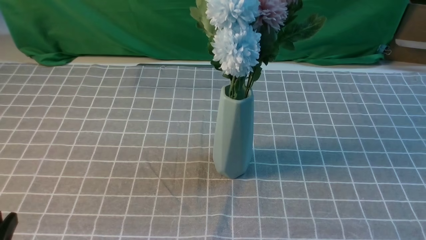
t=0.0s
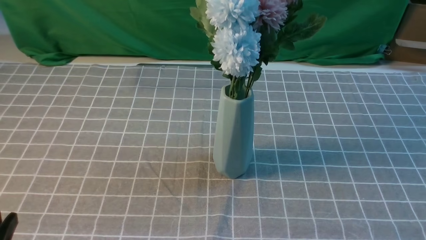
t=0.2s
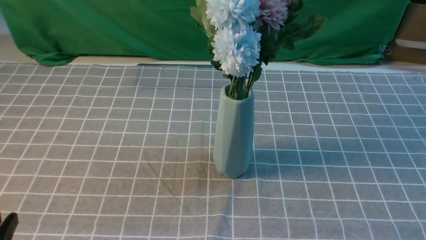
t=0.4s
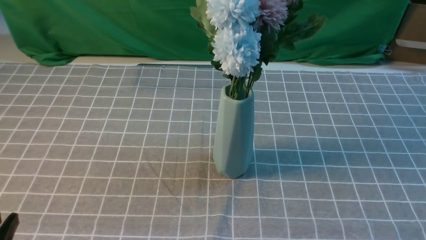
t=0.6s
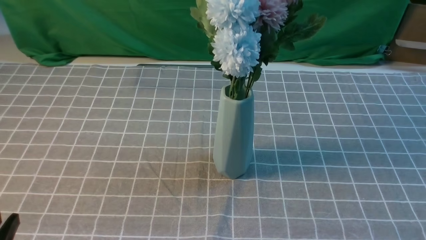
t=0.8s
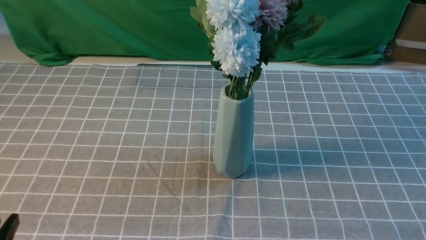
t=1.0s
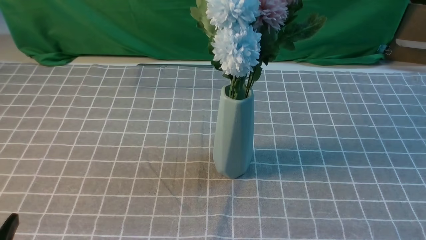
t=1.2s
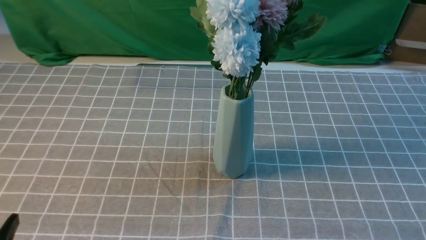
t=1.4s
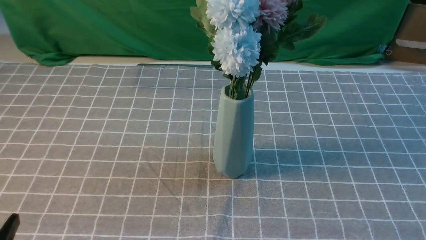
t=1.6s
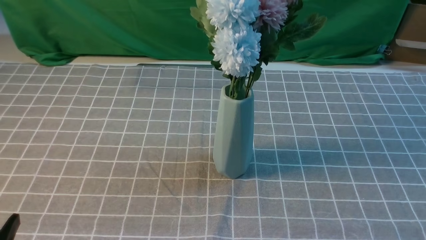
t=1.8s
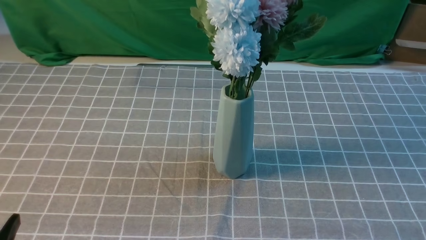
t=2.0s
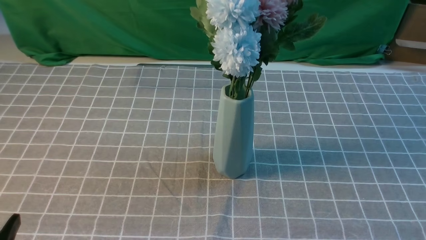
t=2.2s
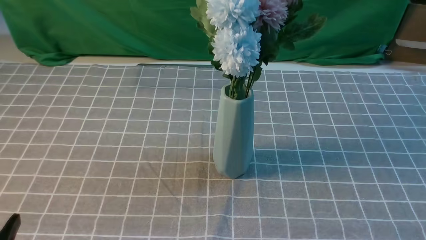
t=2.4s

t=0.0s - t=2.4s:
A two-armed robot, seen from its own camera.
Task of the whole recording: insert the flowers into the vase on the table with the grey tablecloth.
t=1.2s - t=2.4s: Neither gripper changes place.
